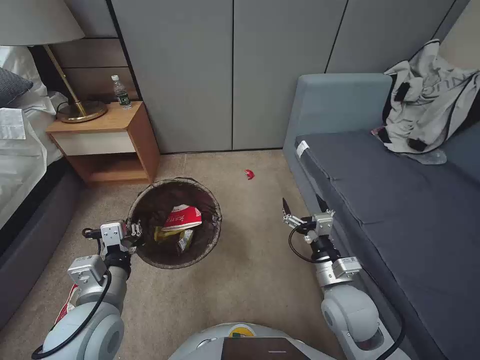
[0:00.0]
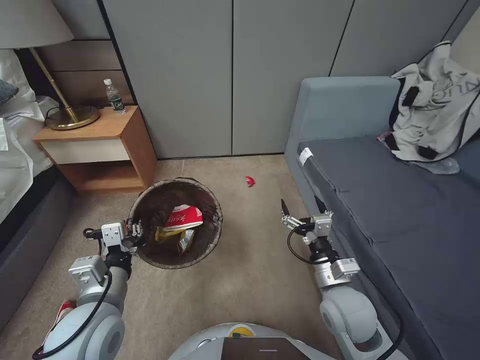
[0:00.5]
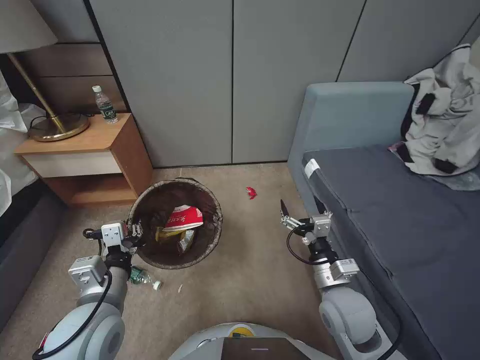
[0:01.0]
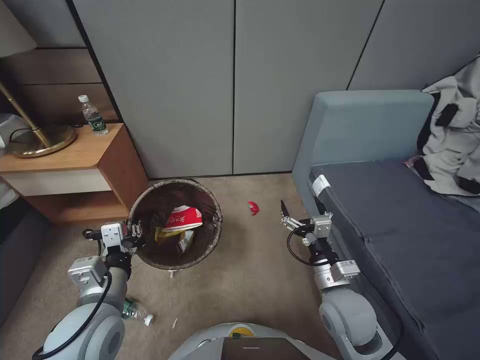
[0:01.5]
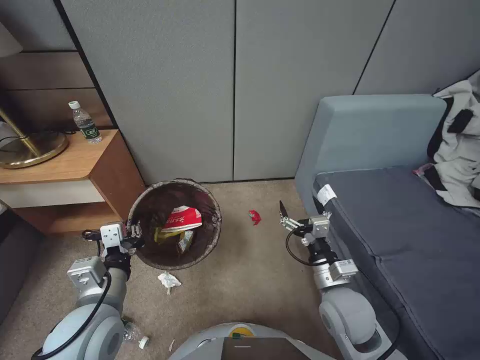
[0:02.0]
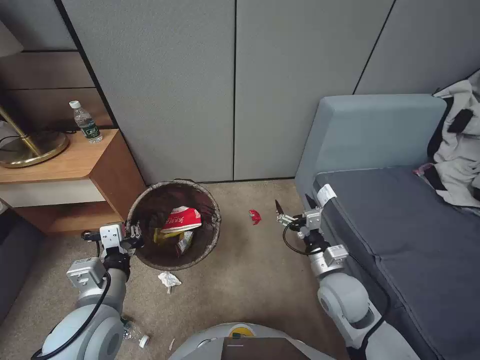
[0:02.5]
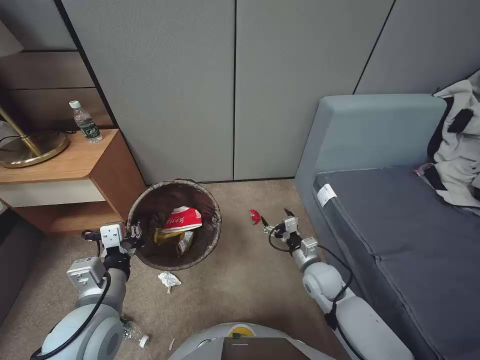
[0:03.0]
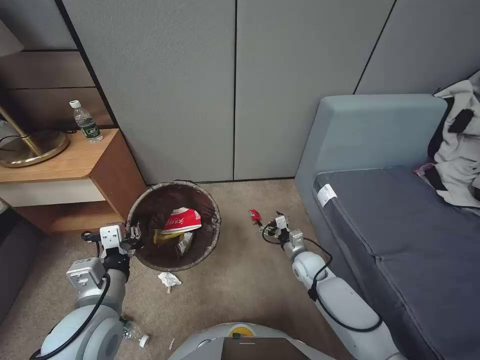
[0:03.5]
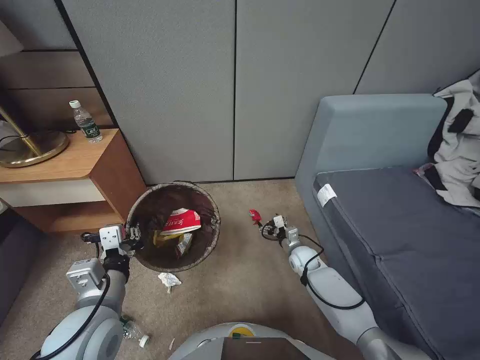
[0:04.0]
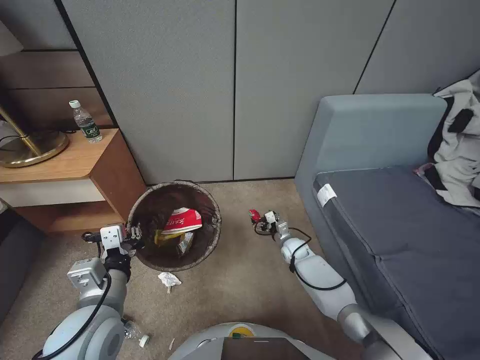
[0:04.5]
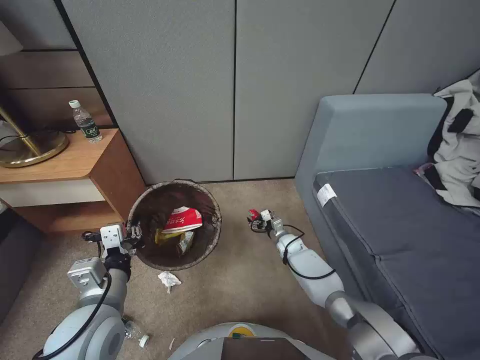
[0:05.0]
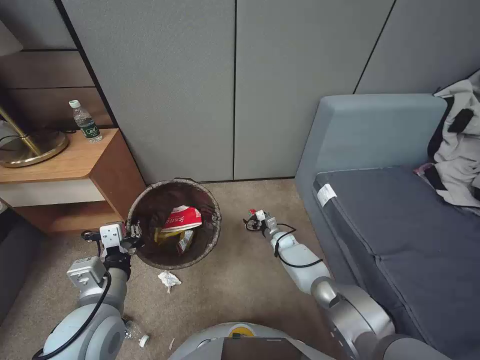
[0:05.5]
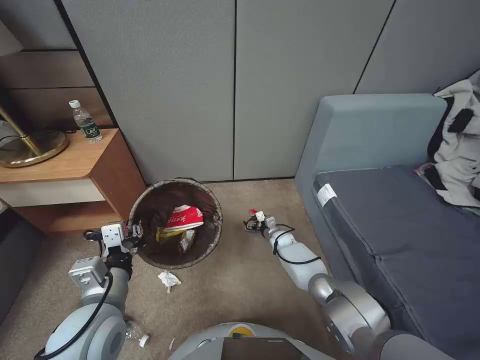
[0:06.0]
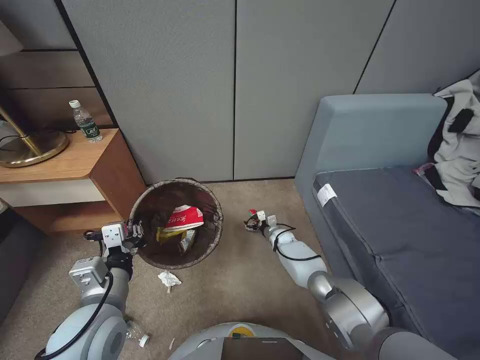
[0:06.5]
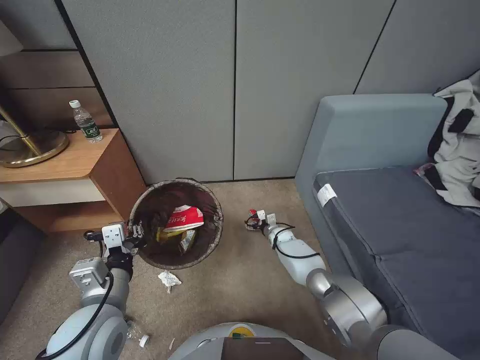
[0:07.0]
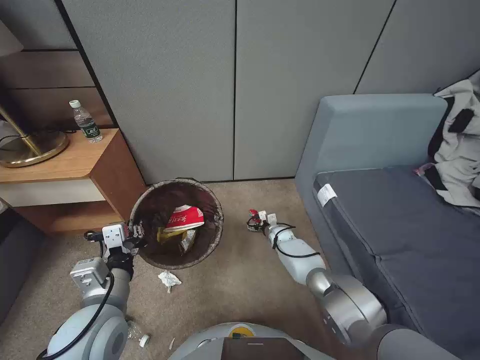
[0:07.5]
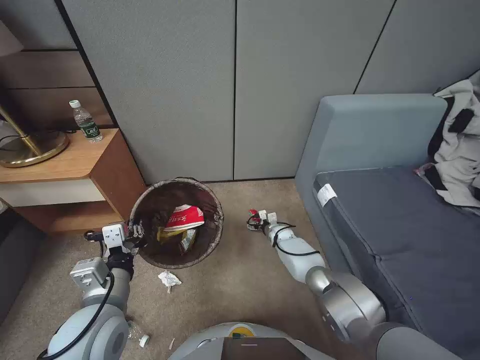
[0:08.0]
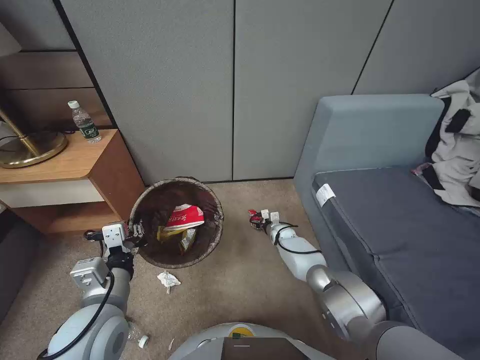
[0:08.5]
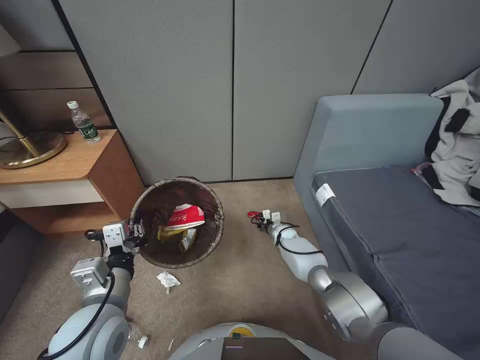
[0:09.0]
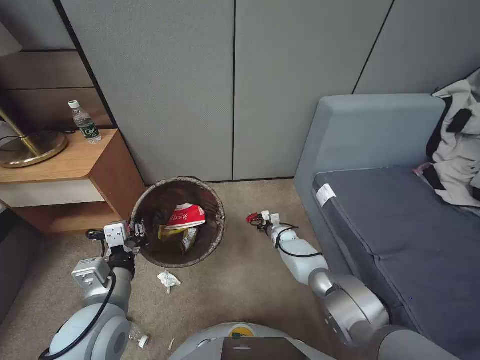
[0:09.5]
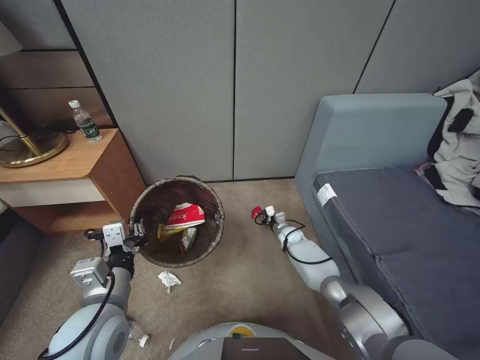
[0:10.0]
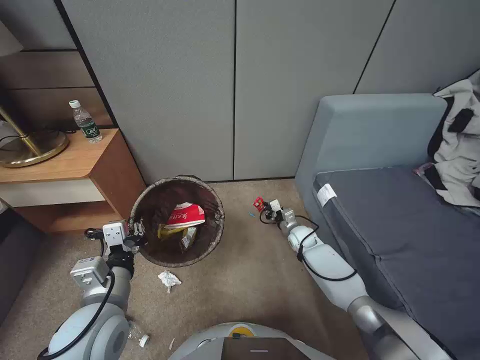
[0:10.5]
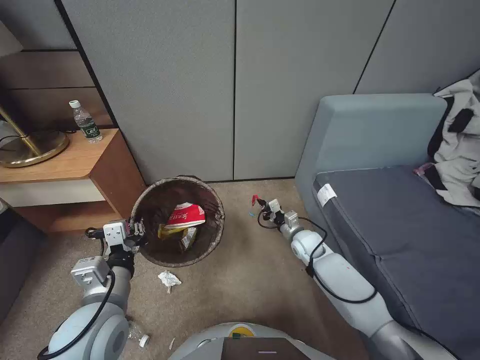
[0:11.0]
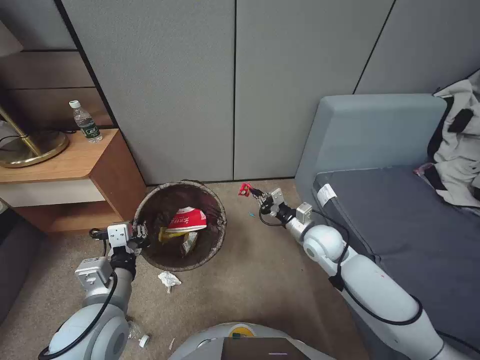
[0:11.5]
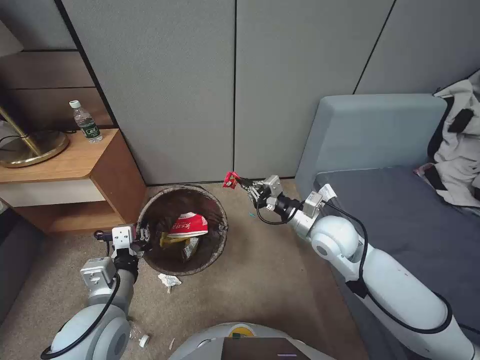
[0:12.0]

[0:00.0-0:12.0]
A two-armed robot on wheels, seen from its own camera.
Task of the whole recording: Pick up the trash bin, then pick up the garbage from the floor and place it into the trash bin.
0:02.0 to 0:04.0: The right gripper moves downward and forward, roughly 25 cm.
0:04.0 to 0:06.0: The right gripper moves forward and downward, about 10 cm.
0:06.0 to 0:08.0: The grippers move only a little.
0:08.0 to 0:10.0: The right gripper closes.
0:10.0 to 0:12.0: The right gripper goes about 35 cm upward and backward.

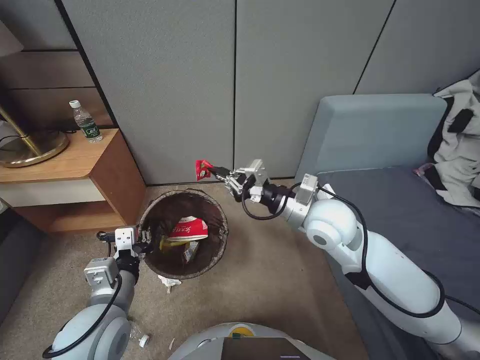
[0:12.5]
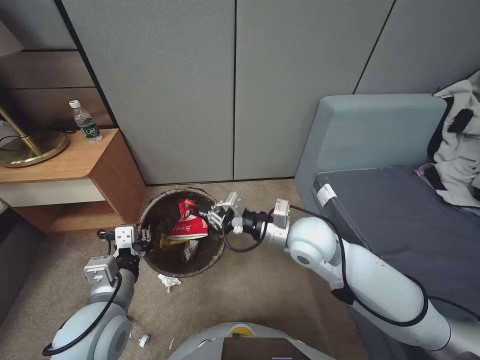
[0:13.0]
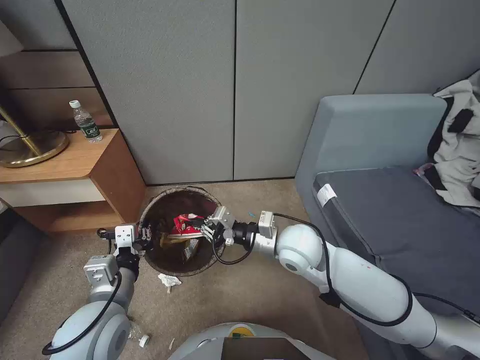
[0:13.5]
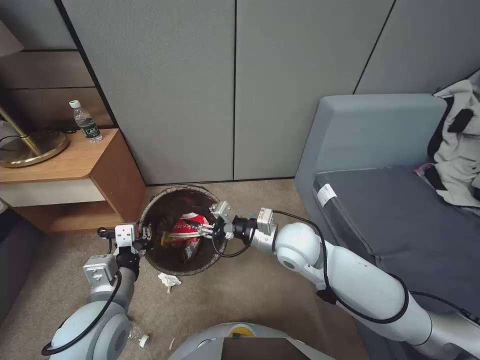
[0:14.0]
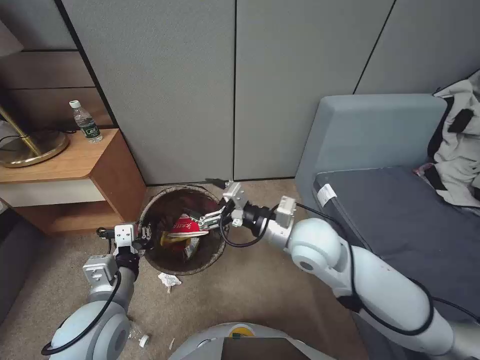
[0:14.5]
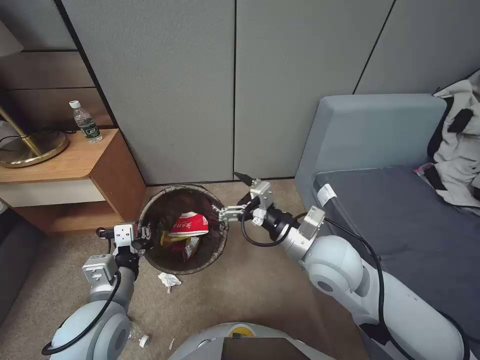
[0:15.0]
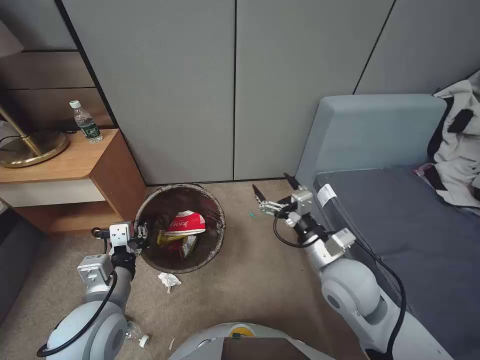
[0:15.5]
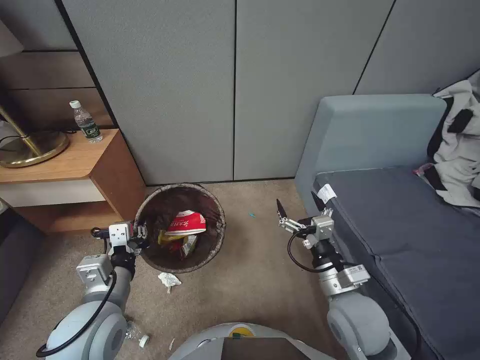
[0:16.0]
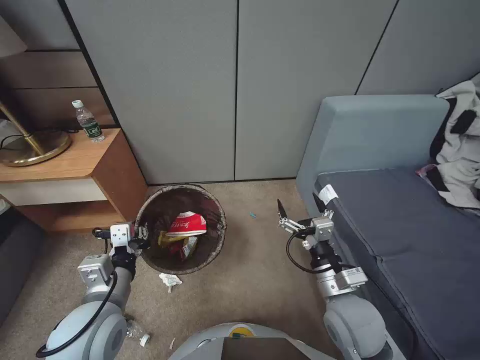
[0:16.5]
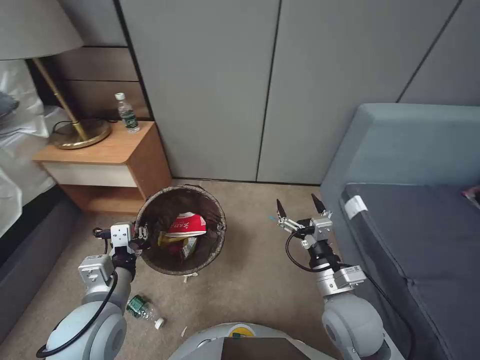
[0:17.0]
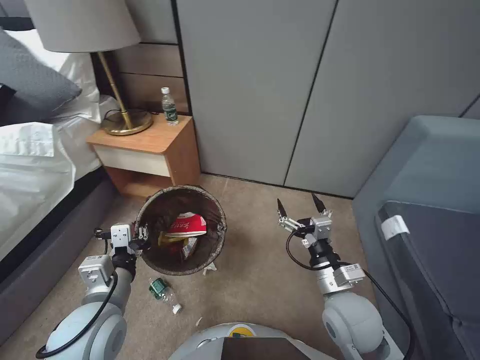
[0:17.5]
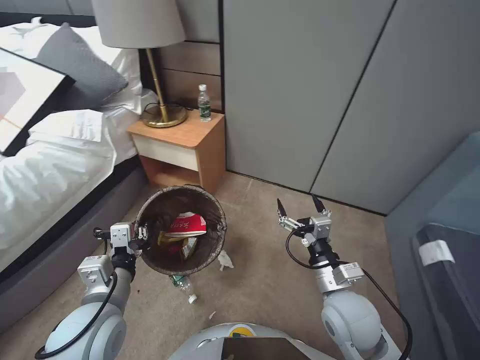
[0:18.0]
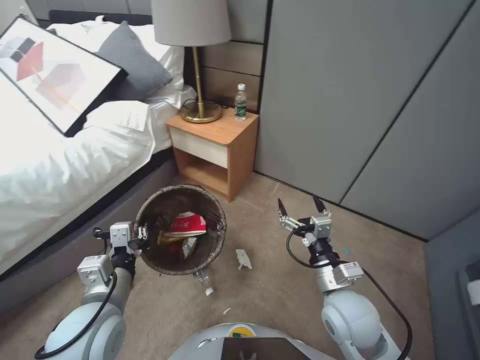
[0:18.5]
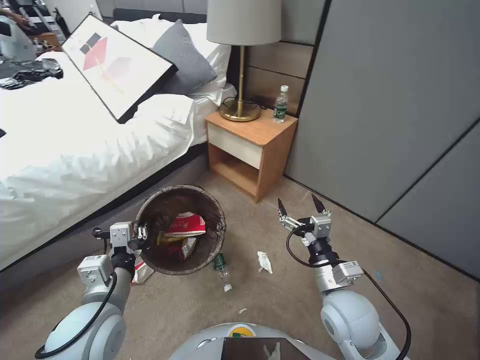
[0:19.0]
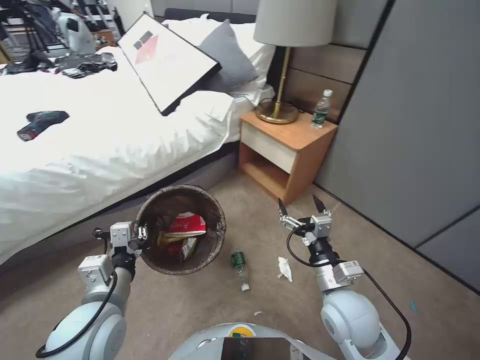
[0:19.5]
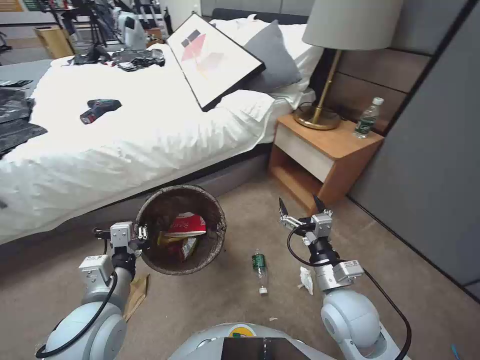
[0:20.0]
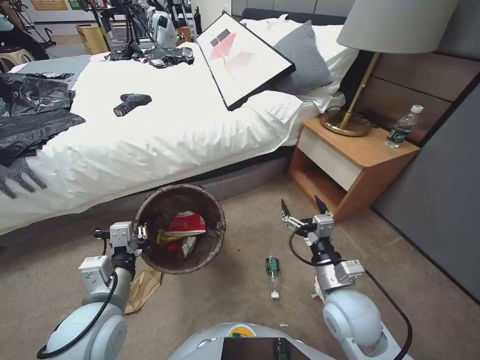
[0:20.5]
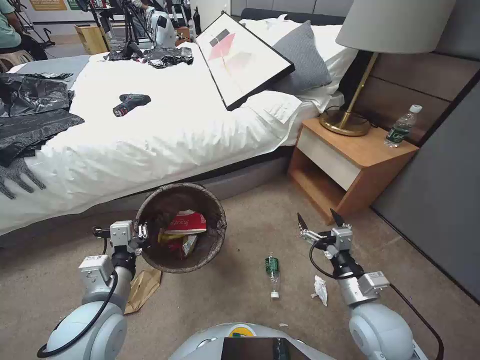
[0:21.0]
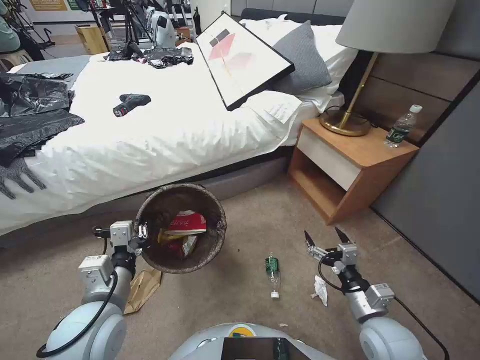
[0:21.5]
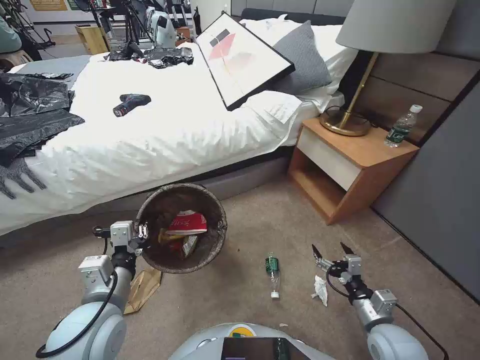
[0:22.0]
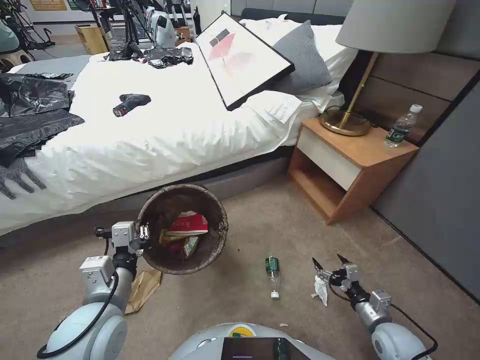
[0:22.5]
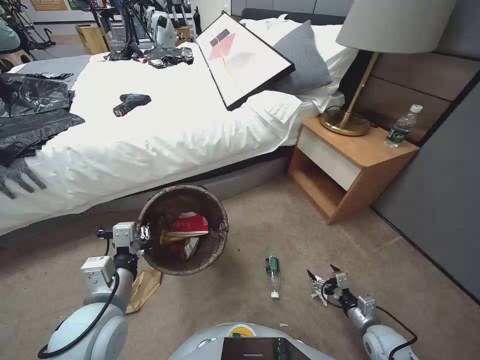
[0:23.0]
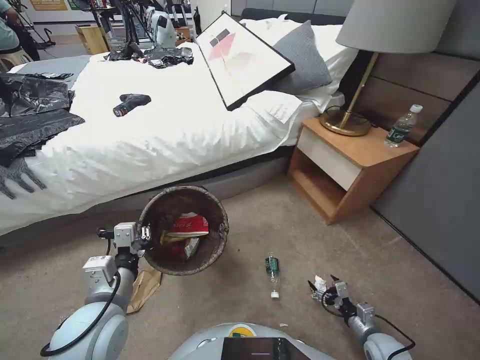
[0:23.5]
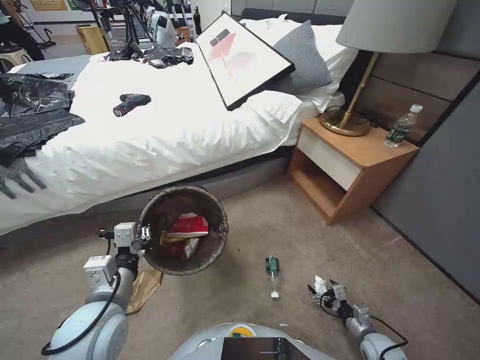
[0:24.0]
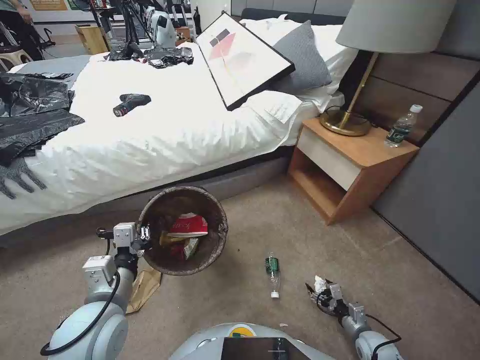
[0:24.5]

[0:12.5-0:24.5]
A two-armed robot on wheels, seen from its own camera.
Task of the whole recording: Pick up the trash bin, then pick up the garbage from the floor and place it into the trash bin.
0:12.5 to 0:14.5: The right gripper shifts by about 5 cm, and opens its fingers.
0:14.5 to 0:16.5: The right gripper goes roughly 15 cm backward, downward and to the right.
0:20.5 to 0:22.5: The right gripper moves to the right and downward, approximately 25 cm.
0:22.5 to 0:24.5: The right gripper heads downward, covering roughly 15 cm.

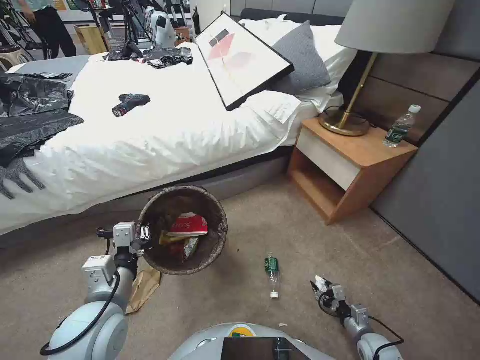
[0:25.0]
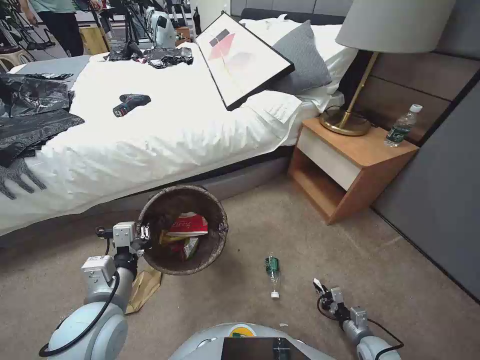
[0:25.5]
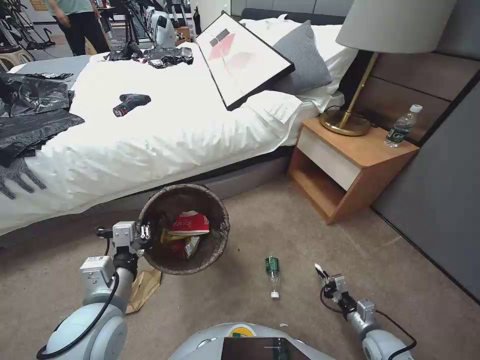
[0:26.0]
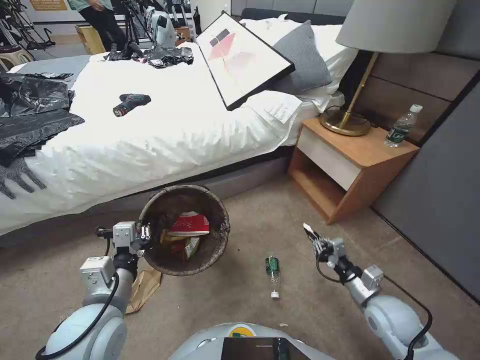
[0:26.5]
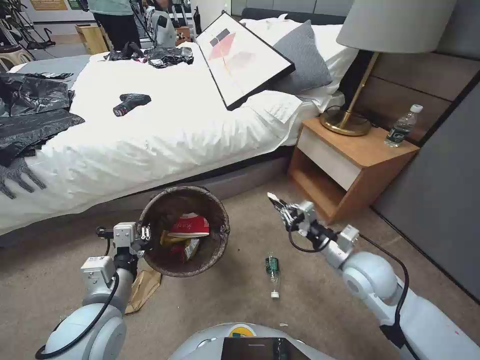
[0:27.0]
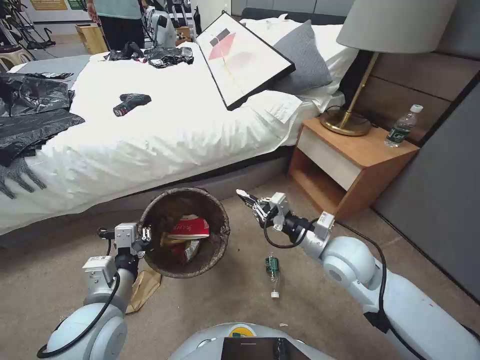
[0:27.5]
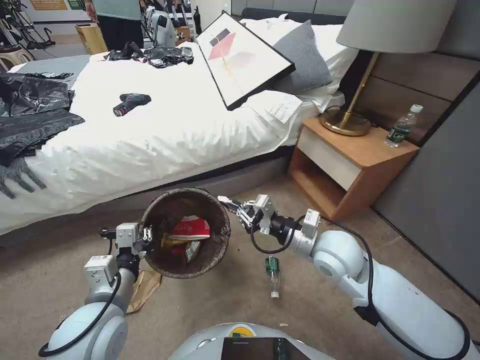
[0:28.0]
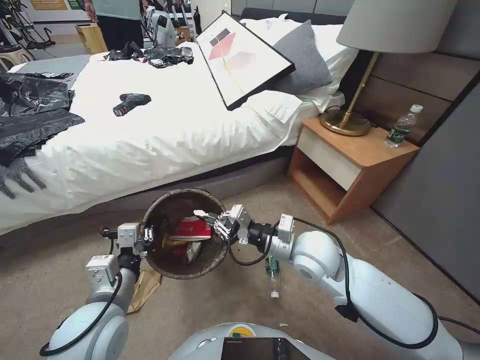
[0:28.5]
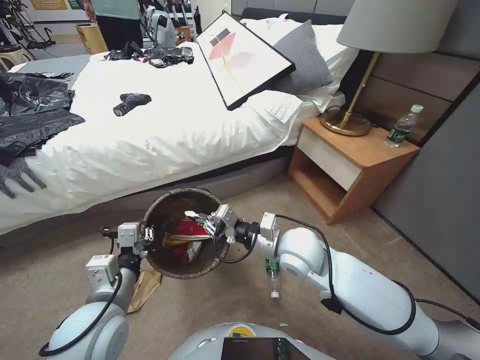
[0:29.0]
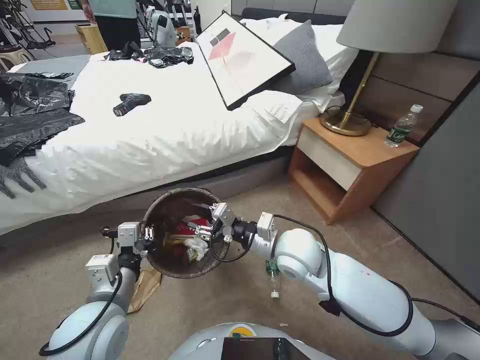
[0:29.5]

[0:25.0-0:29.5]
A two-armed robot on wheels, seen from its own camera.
Task of the whole recording: Pick up the trash bin, then pick up the garbage from the floor and place it into the trash bin.
0:25.0 to 0:27.0: The right gripper moves upward and to the left, approximately 30 cm, and closes.
0:27.0 to 0:29.5: The right gripper travels to the left by about 20 cm, and opens.
